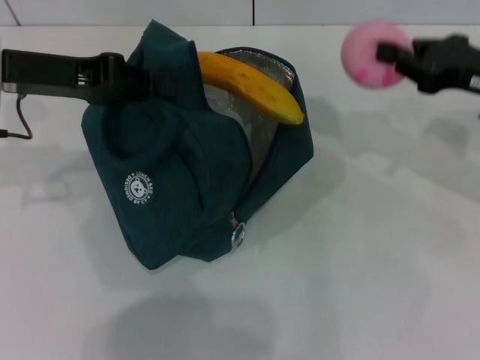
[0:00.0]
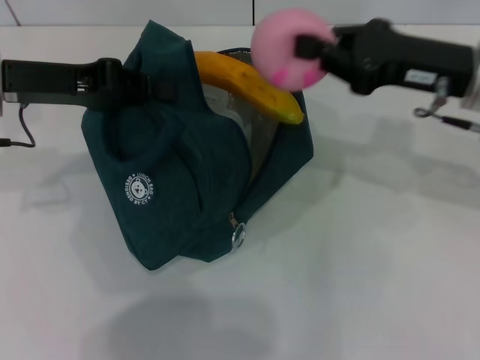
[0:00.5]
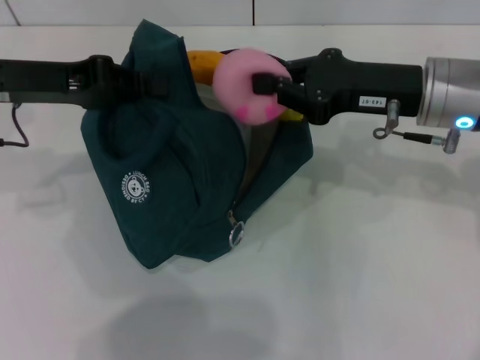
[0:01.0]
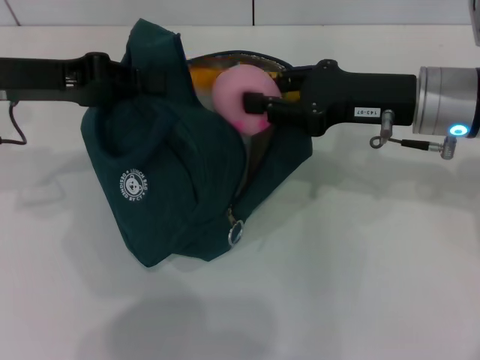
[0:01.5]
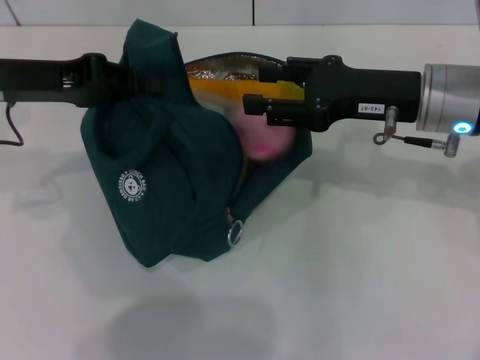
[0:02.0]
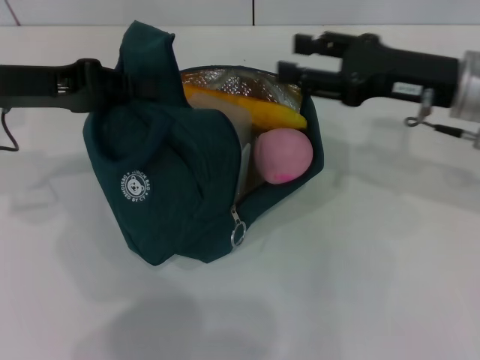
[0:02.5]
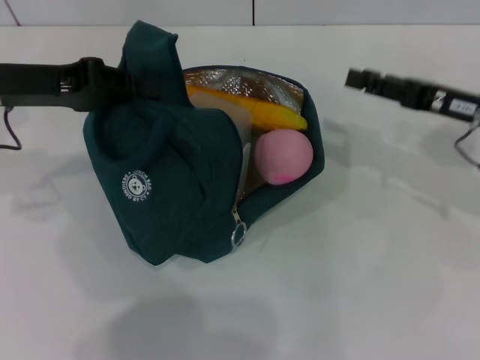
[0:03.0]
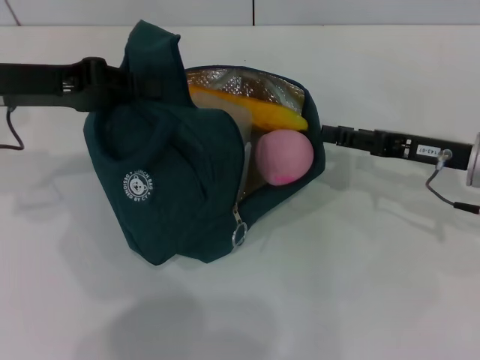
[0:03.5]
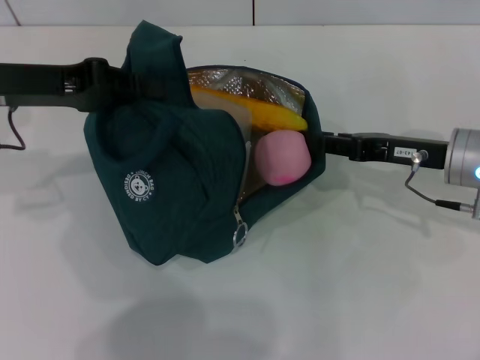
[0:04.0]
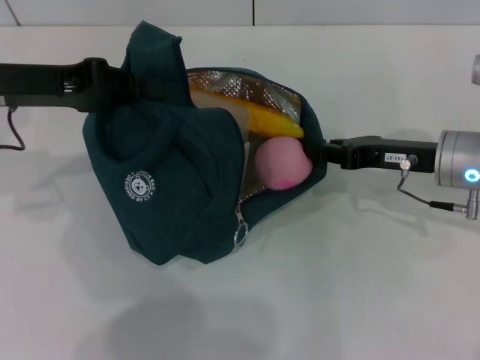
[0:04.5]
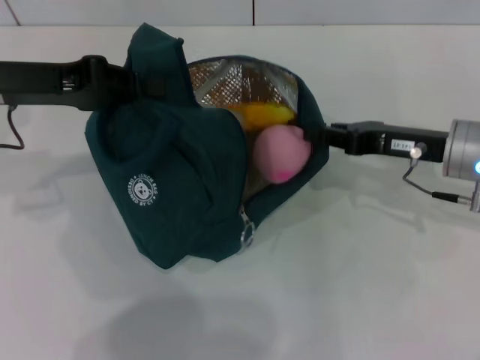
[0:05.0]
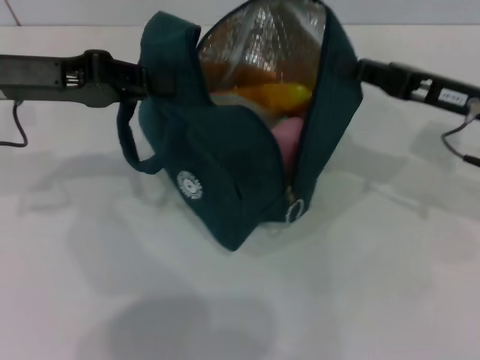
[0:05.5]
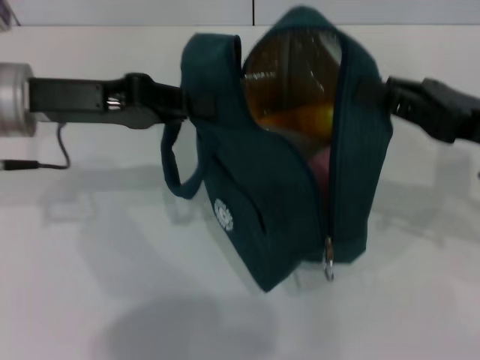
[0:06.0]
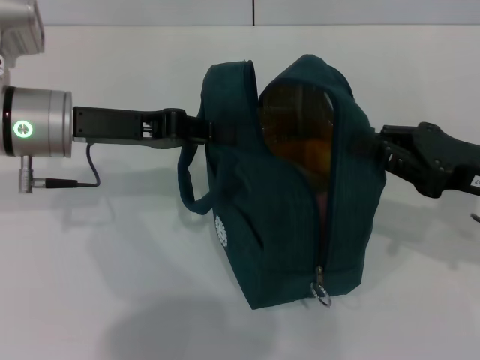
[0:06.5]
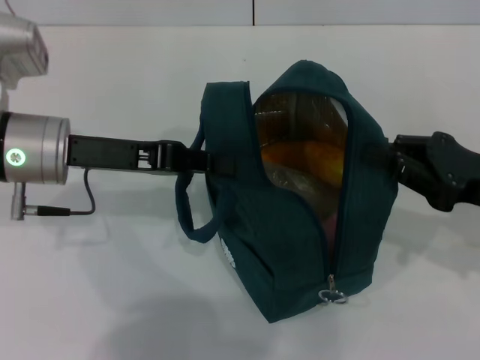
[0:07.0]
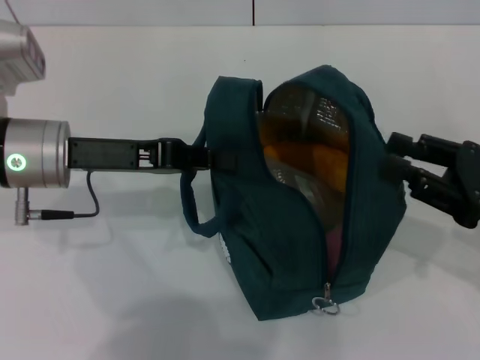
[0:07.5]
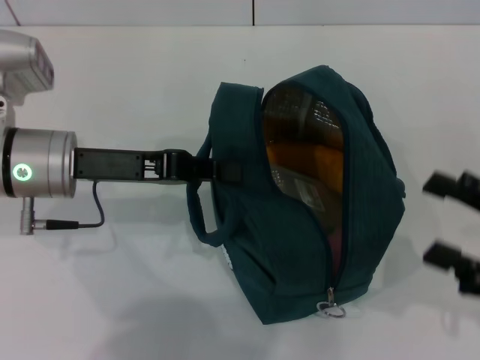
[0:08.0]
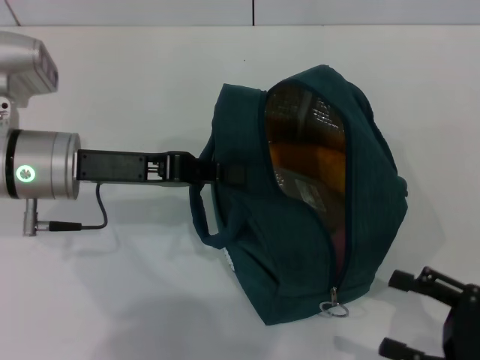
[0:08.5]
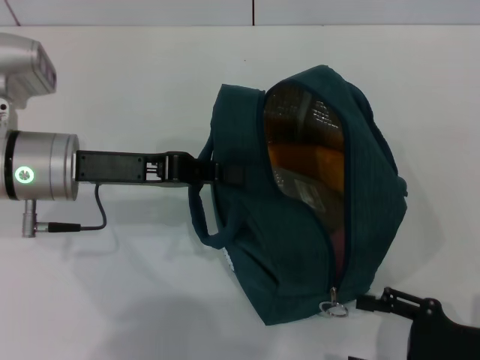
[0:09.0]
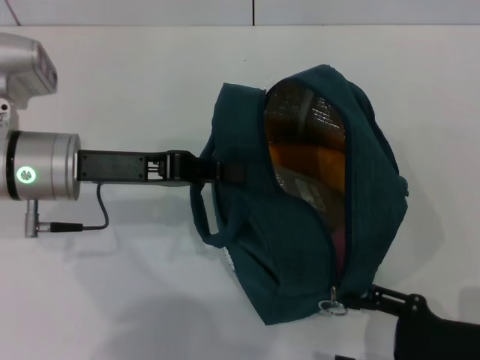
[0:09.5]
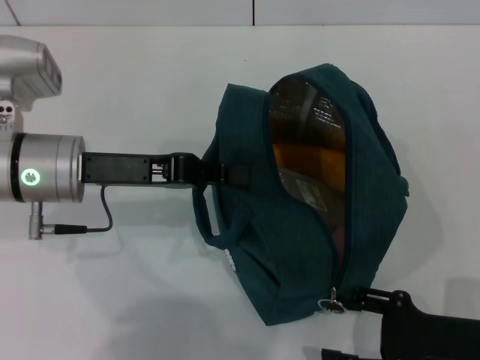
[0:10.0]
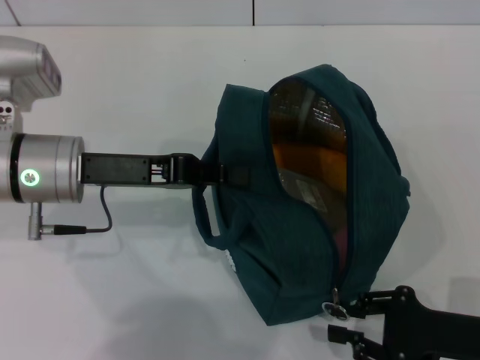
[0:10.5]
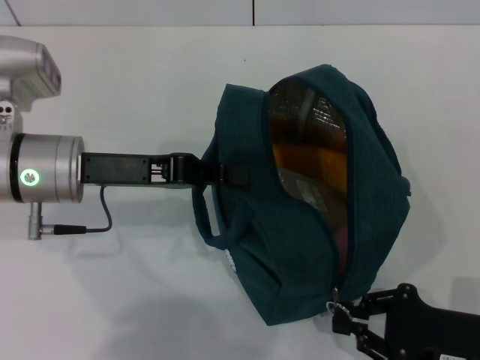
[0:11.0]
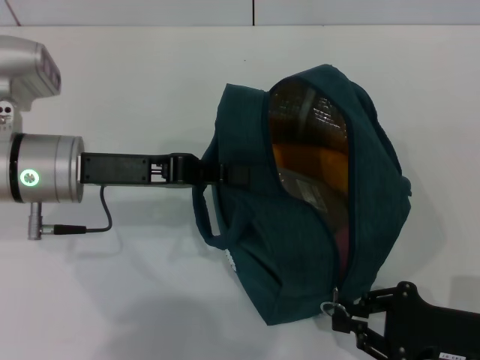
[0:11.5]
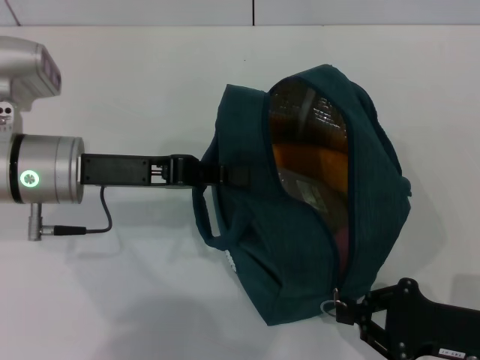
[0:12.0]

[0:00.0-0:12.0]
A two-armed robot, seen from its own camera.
Step, 0:00.0 to 0:02.0: Secure the lunch bag with your left hand.
Step, 0:02.5 to 0:07.5: Hold the lunch bag with your right hand.
0:00.0 to 0:02.0: The right gripper travels to the left by about 10 cm, and opens.
0:02.0 to 0:04.0: The right gripper is displaced downward by about 5 cm.
0:04.0 to 0:06.0: The right gripper travels upward by about 5 cm, and closes up.
0:06.0 to 0:08.0: The left gripper shifts by roughly 5 cm, while the right gripper is displaced backward and downward by roughly 10 cm, and opens.
0:08.0 to 0:10.0: The right gripper goes some 10 cm downward and to the left.
0:10.0 to 0:12.0: The right gripper closes.

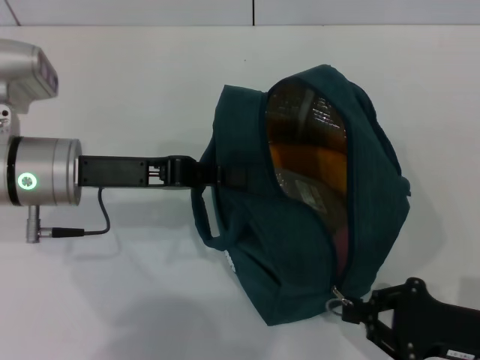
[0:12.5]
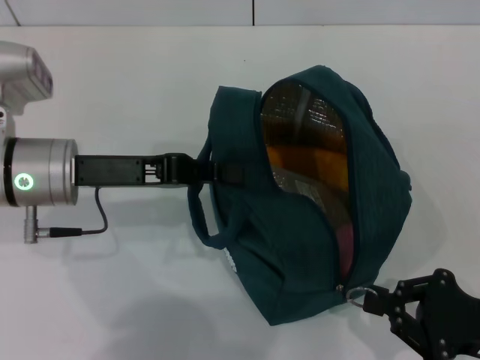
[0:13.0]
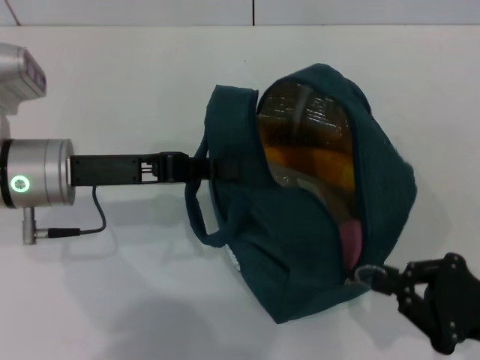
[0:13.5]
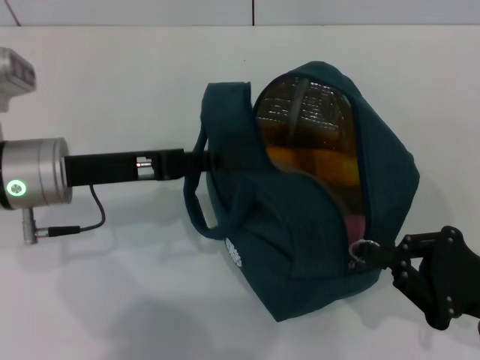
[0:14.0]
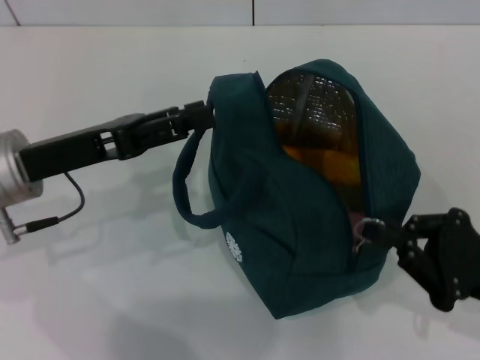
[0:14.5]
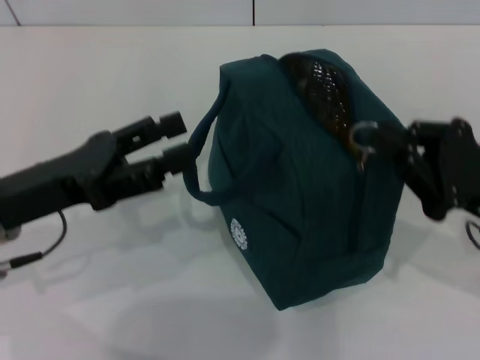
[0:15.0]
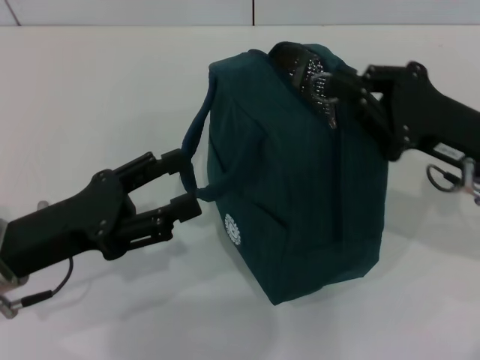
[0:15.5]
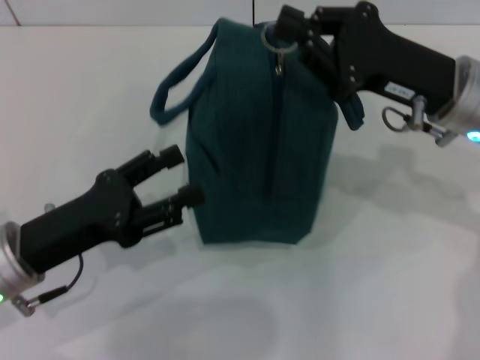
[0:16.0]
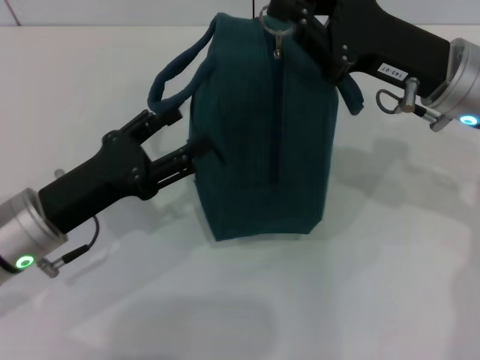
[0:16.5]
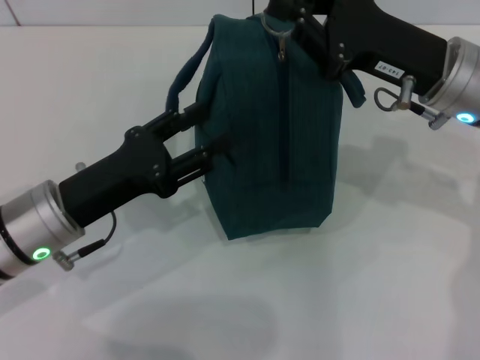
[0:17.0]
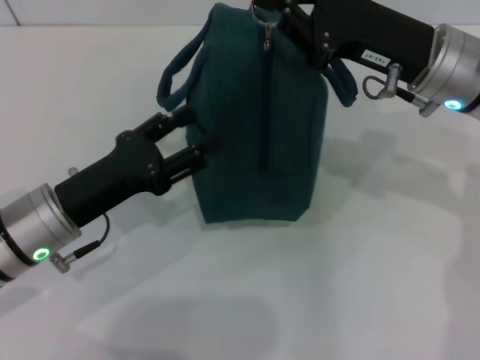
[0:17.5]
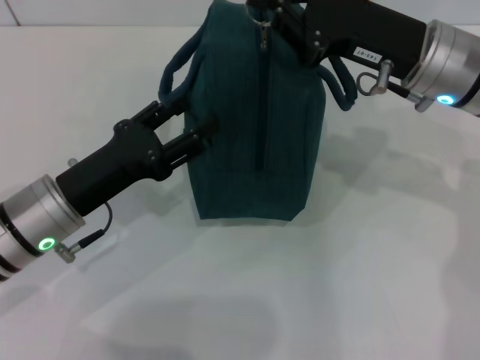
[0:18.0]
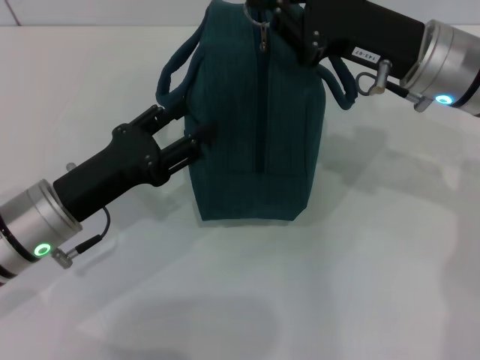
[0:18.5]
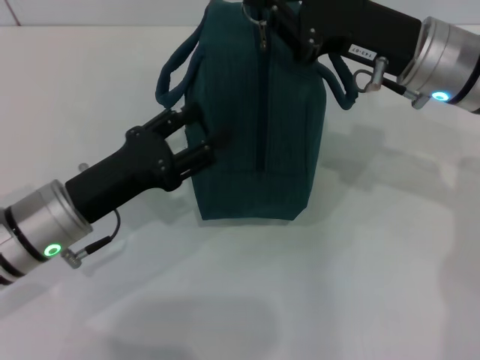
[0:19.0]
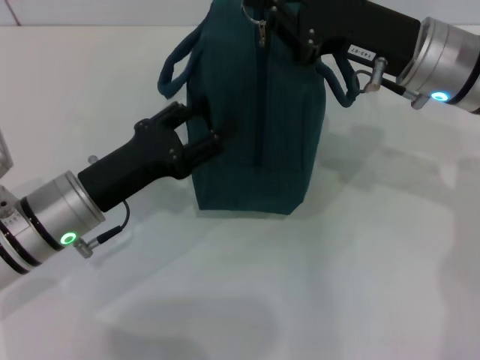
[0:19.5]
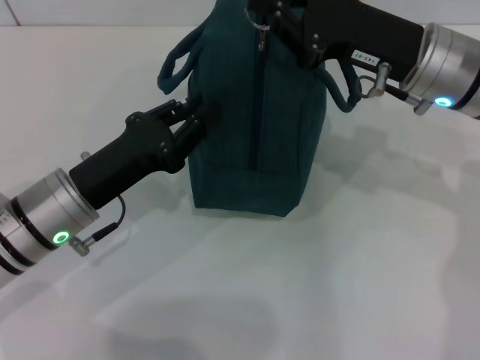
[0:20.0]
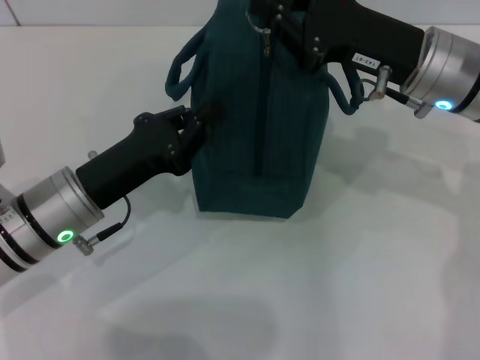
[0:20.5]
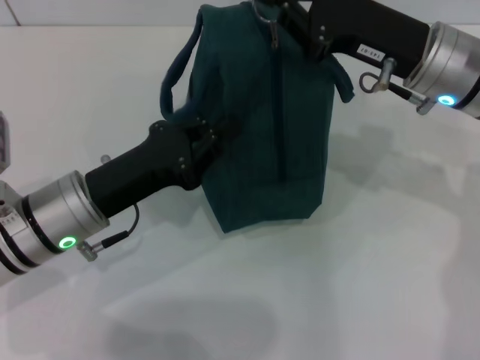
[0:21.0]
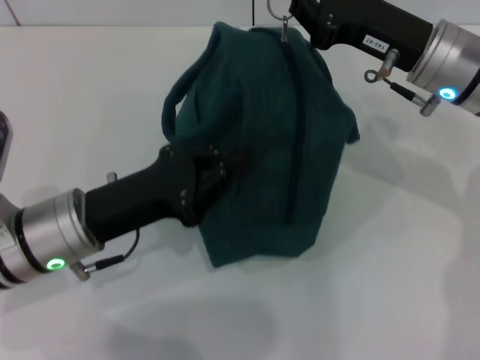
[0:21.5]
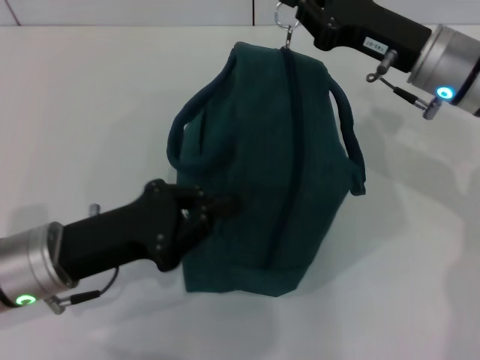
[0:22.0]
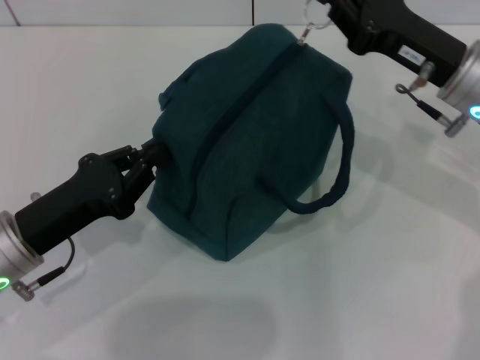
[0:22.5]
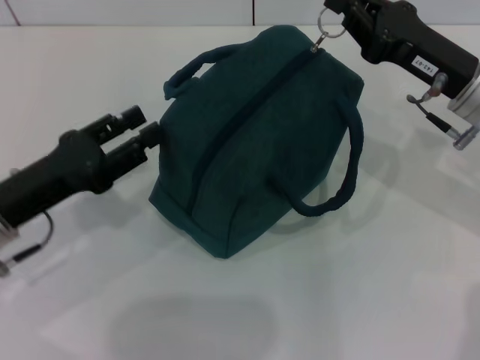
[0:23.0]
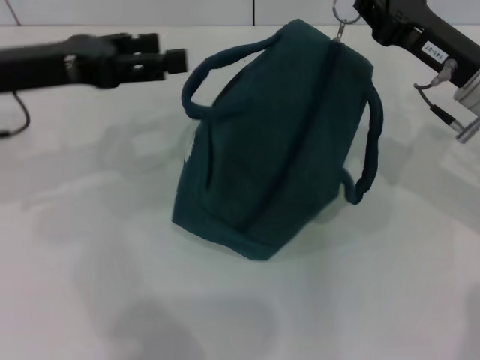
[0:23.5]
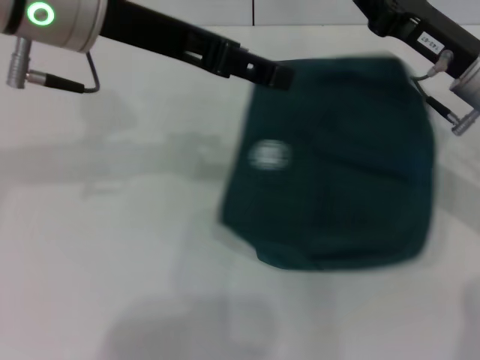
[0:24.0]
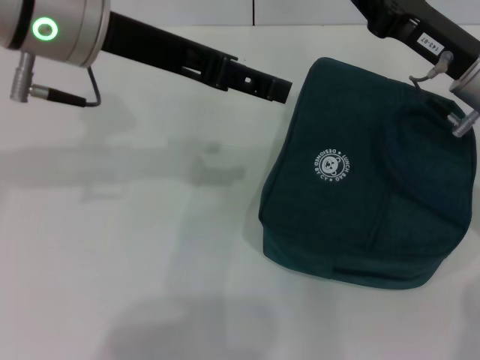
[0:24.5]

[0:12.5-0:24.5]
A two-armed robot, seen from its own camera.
Step, 0:12.5 to 0:15.0: Hold the lunch bag with your left hand.
0:12.5 to 0:14.5: The left gripper opens.
0:14.5 to 0:16.5: The right gripper moves forward, upward and to the left, about 20 cm. The left gripper moves downward, roughly 5 cm.
0:16.5 to 0:18.5: The grippers stay close to where they were, moving slightly.
0:18.5 to 0:20.5: The left gripper closes.
0:20.5 to 0:22.5: The left gripper moves approximately 5 cm.
0:22.5 to 0:24.5: The left gripper moves upward, to the right and forward, about 25 cm, and opens up.

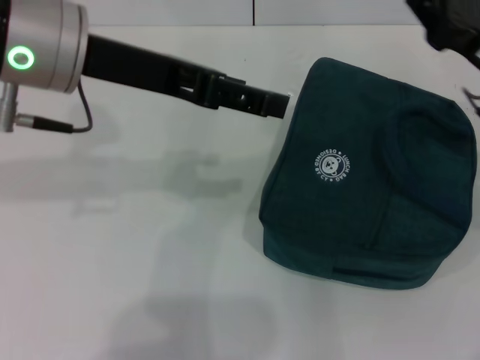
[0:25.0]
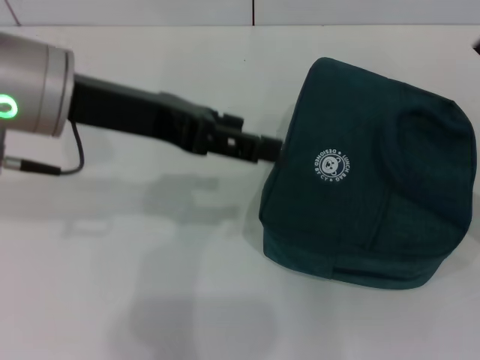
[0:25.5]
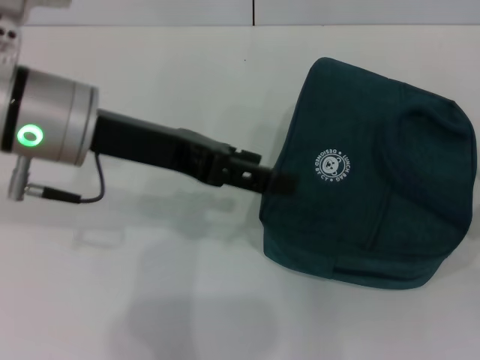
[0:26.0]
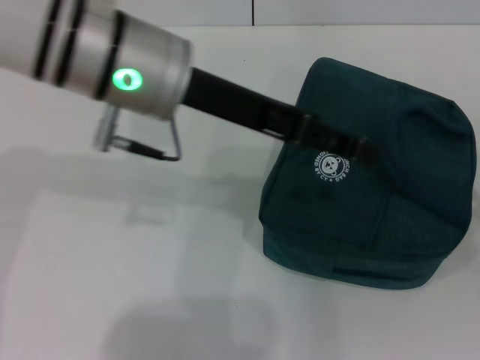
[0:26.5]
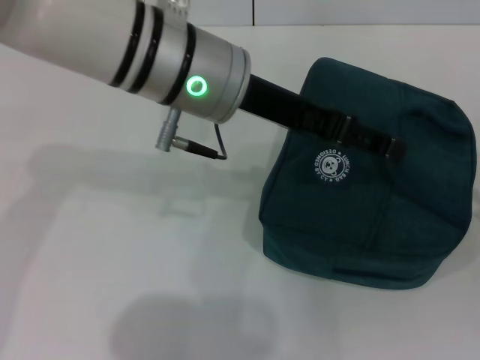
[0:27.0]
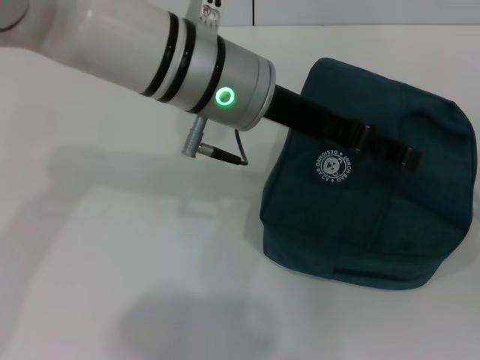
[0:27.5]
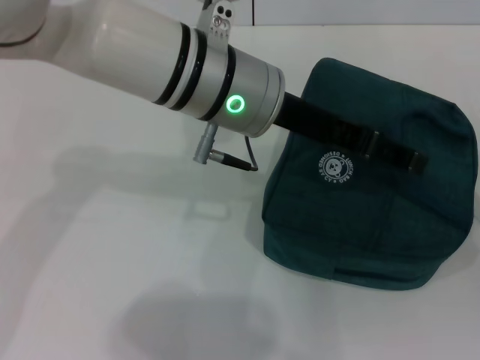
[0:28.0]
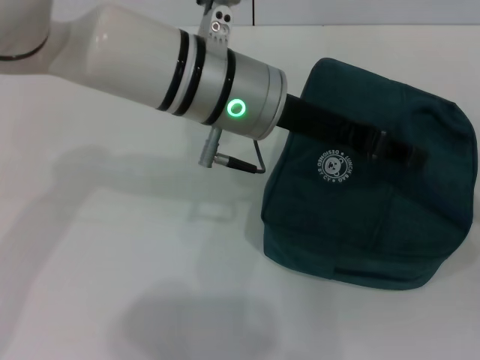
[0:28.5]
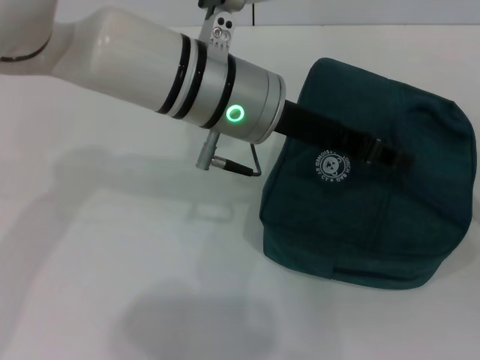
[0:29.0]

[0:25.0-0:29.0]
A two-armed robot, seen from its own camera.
0:25.0 to 0:27.0: The left gripper goes some 10 cm to the right, while the right gripper goes some 25 cm backward, to the right and downward, and opens.
0:27.0 to 0:29.0: The left gripper closes its fingers.
